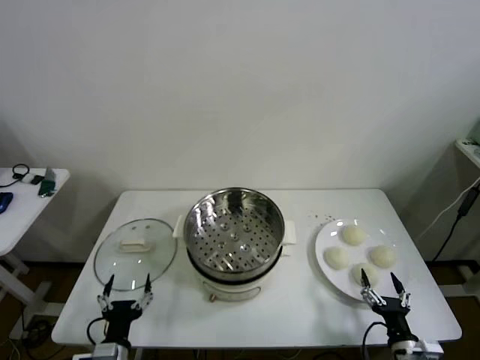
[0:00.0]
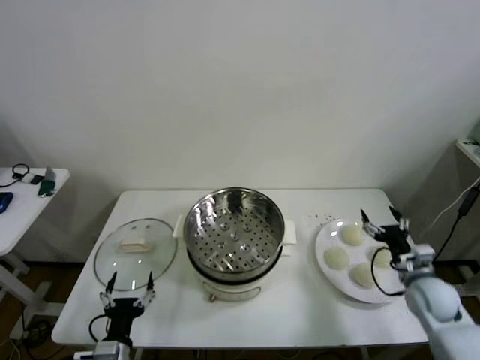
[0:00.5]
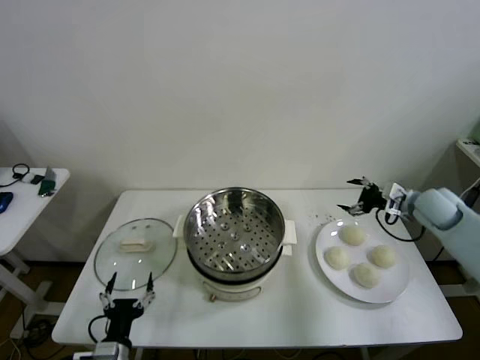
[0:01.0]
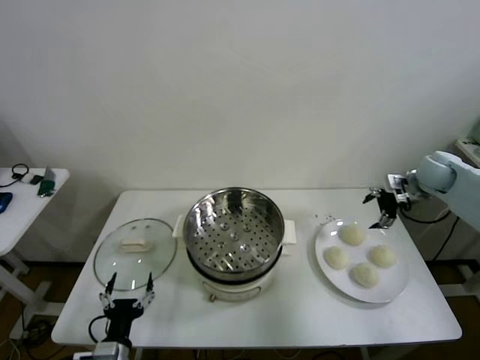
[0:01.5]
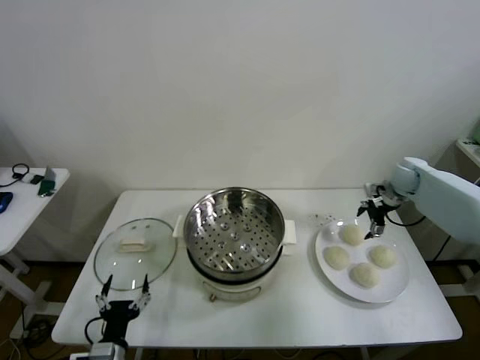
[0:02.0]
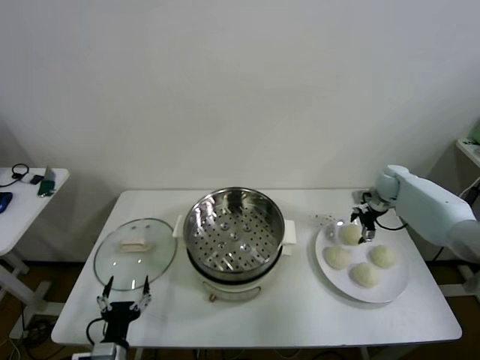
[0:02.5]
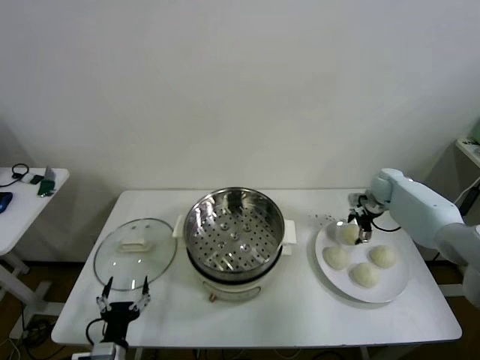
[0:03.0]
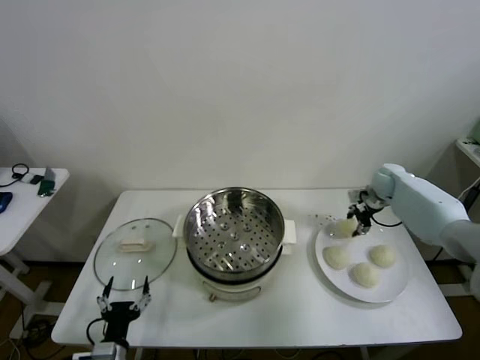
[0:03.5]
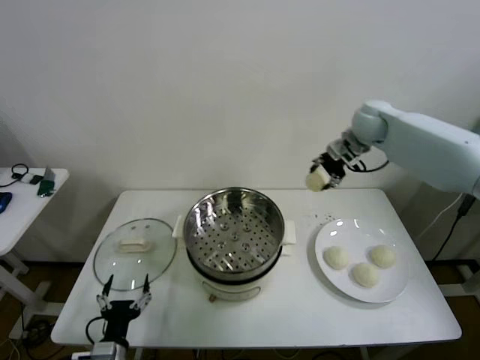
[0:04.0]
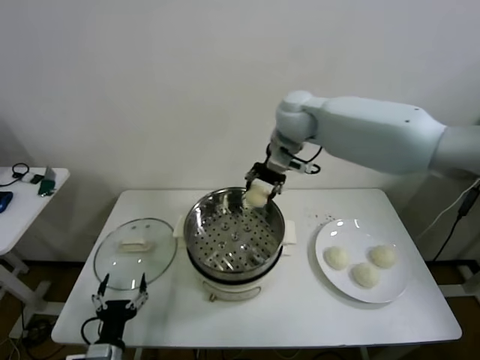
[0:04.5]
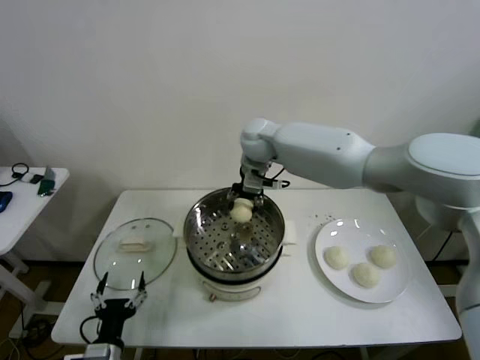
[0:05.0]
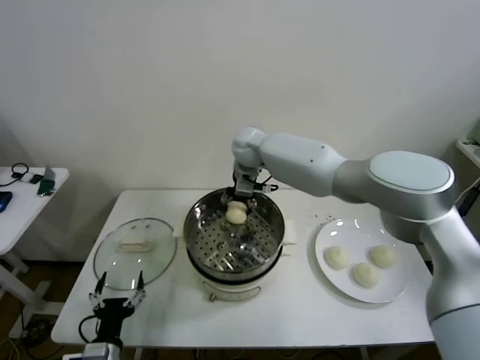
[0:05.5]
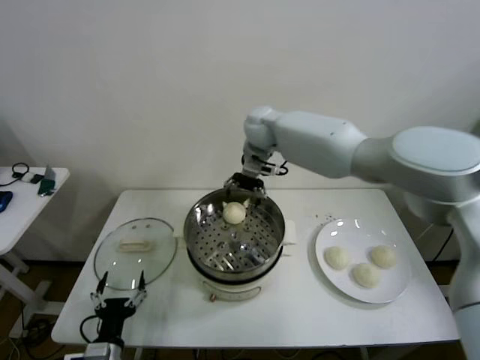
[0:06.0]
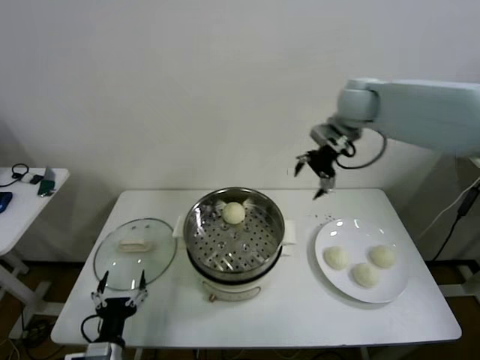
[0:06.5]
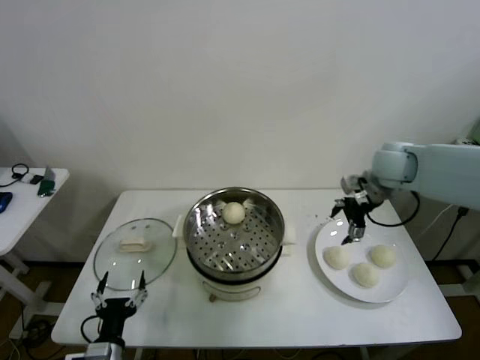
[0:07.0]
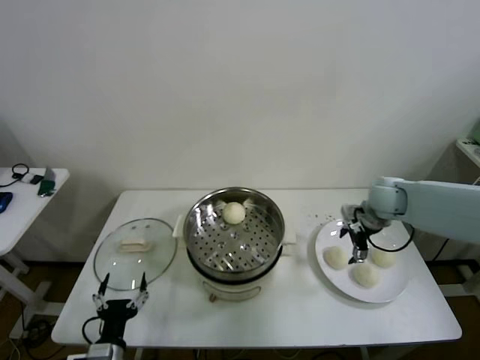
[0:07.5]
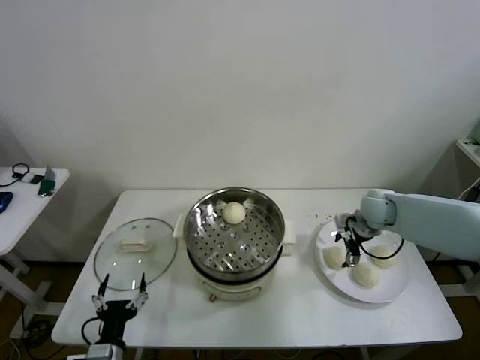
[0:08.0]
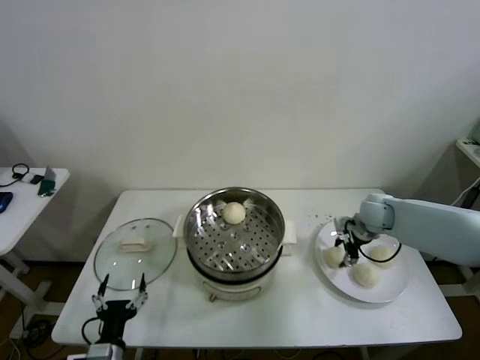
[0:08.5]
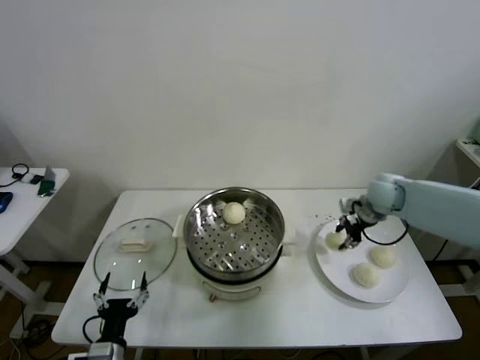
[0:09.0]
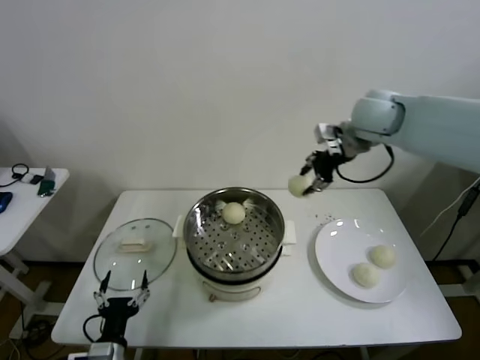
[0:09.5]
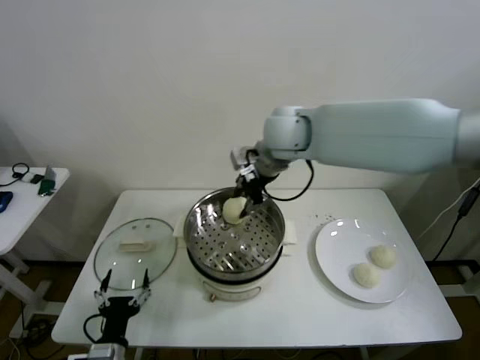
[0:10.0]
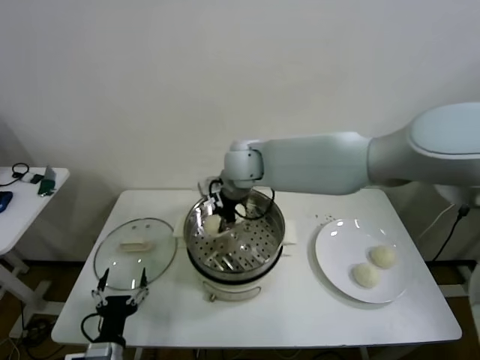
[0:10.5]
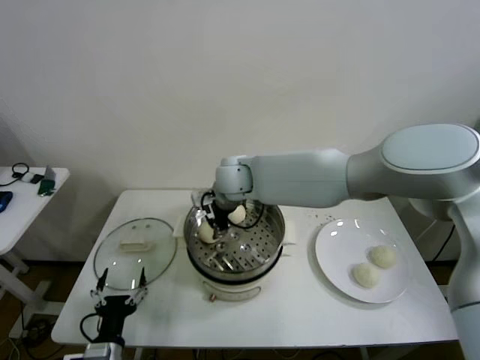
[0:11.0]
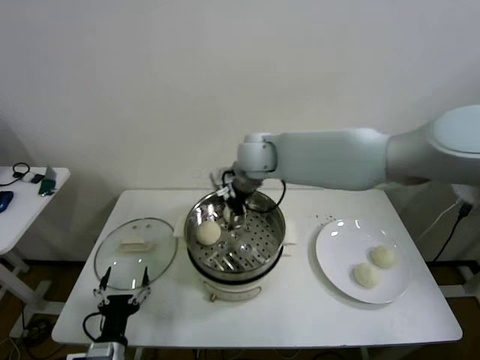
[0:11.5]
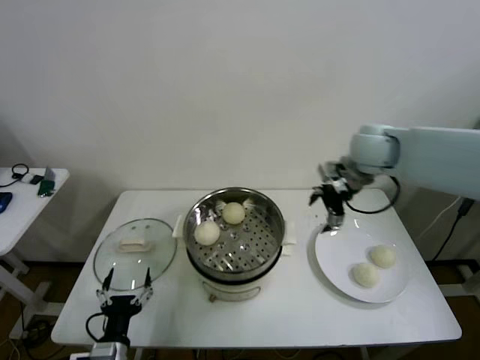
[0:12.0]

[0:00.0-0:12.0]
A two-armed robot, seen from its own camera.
Step, 0:00.0 to 0:03.0: Grasp the baozi in the plate with right gripper.
Step, 0:03.5 to 0:05.5: Place the baozi on the steamer with right gripper.
Step, 0:06.0 to 0:08.5: Grasp the baozi in the plate with right gripper.
Step, 0:09.0 to 0:11.0: Place the baozi on the steamer with right gripper.
0:02.0 to 0:04.0: The right gripper travels upward and to the left by roughly 25 cm, and closes its fingers.
0:04.0 to 0:06.0: The right gripper is displaced to the left by about 20 cm, and opens its fingers.
0:06.0 to 0:08.0: The right gripper shifts some 35 cm to the right, downward and backward.
0:08.0 to 0:10.0: The right gripper moves to the left and upward, roughly 35 cm, and closes its fingers.
0:10.0 to 0:12.0: The right gripper goes some 25 cm to the right, and opens.

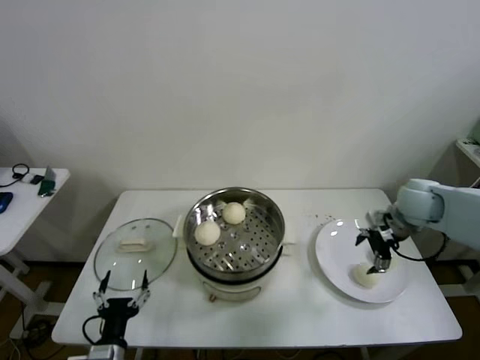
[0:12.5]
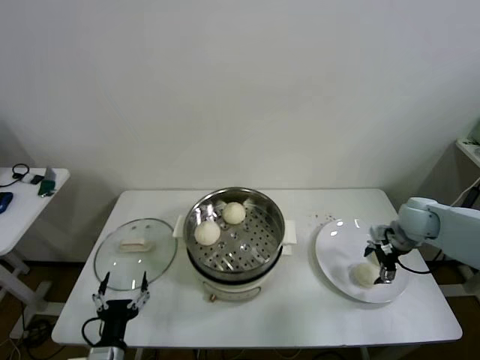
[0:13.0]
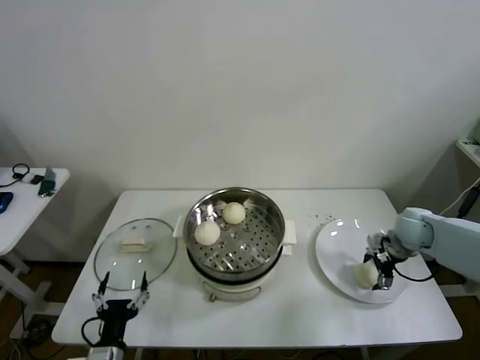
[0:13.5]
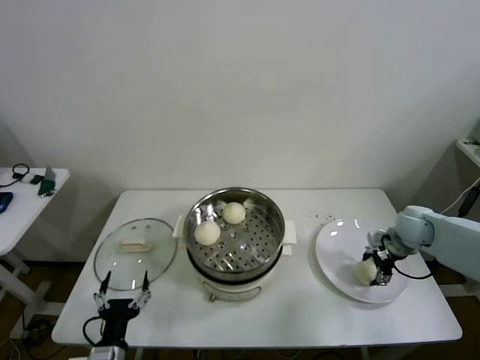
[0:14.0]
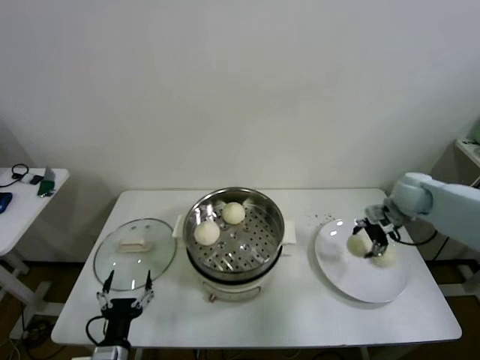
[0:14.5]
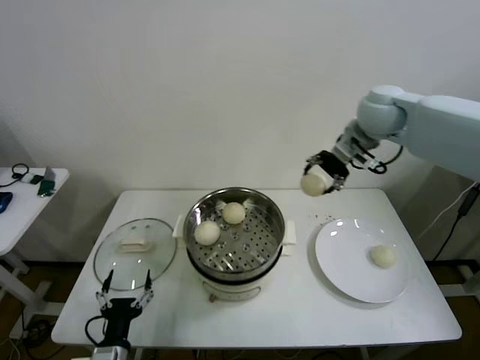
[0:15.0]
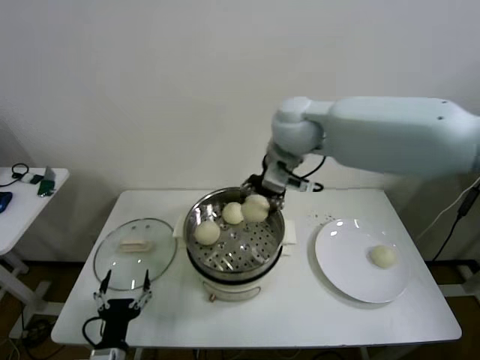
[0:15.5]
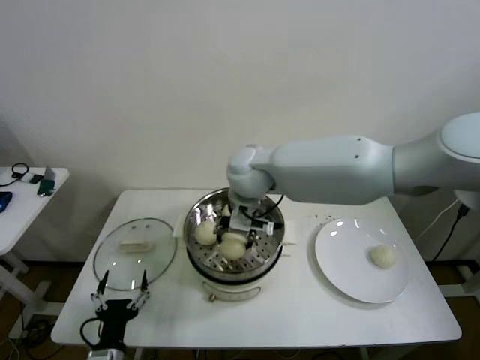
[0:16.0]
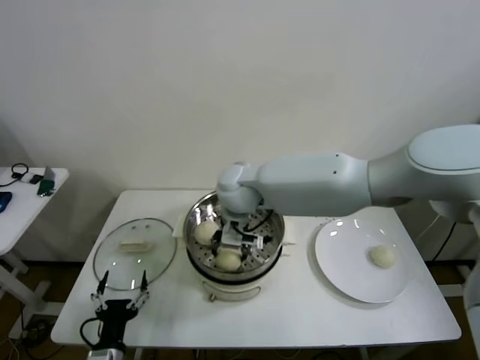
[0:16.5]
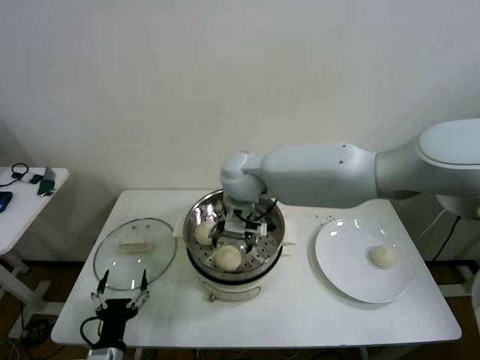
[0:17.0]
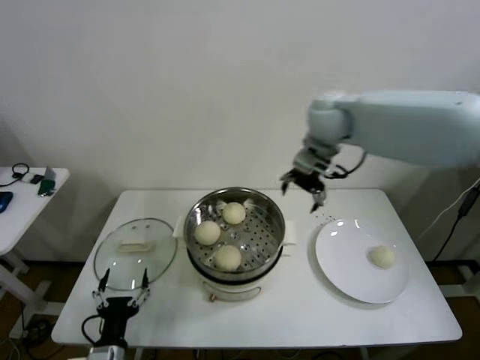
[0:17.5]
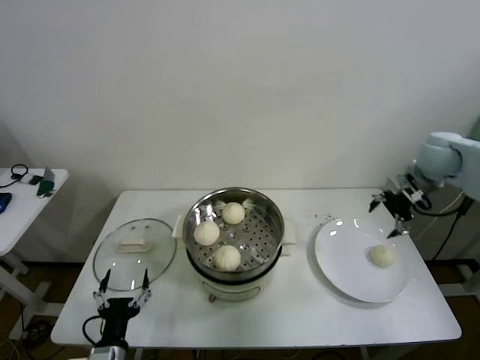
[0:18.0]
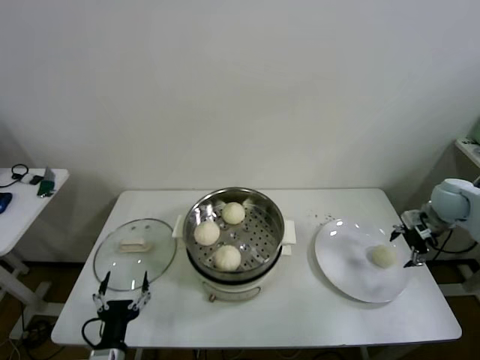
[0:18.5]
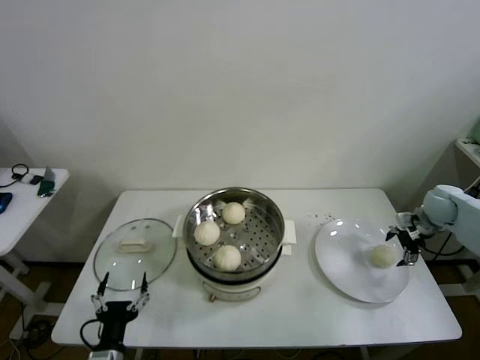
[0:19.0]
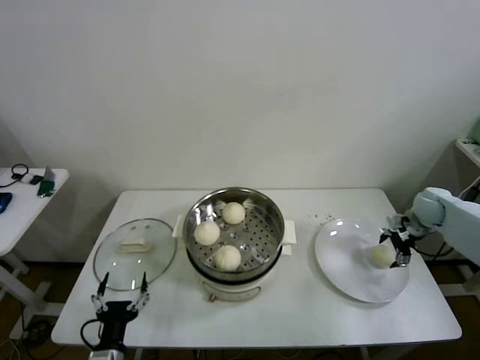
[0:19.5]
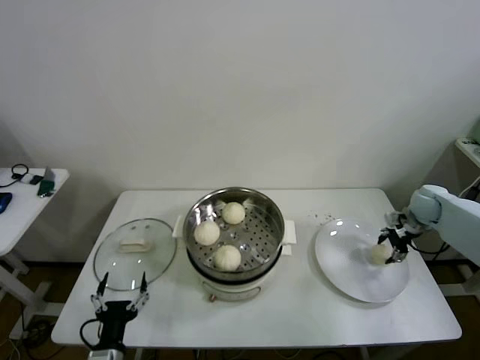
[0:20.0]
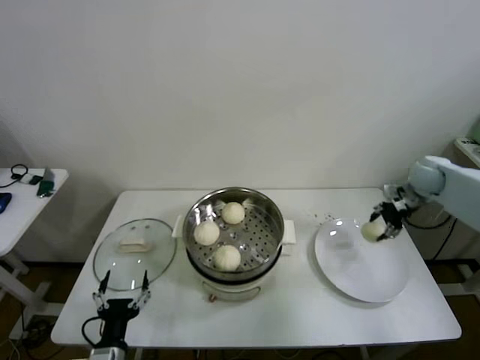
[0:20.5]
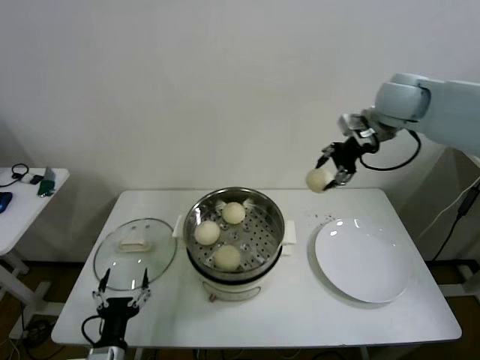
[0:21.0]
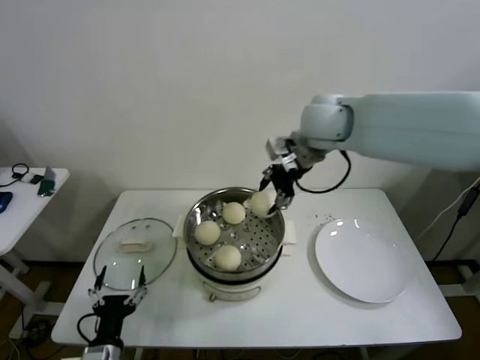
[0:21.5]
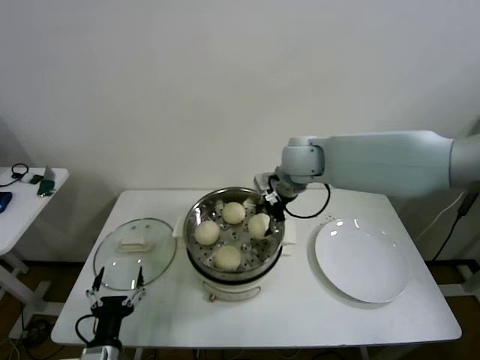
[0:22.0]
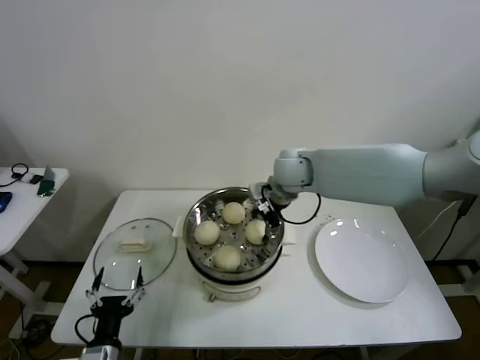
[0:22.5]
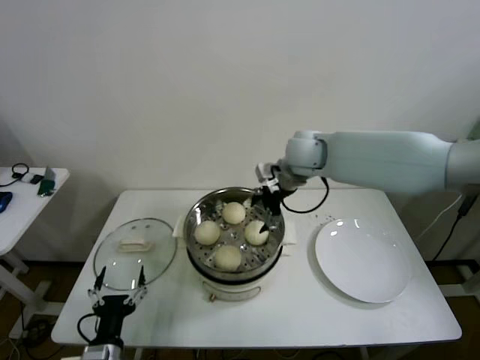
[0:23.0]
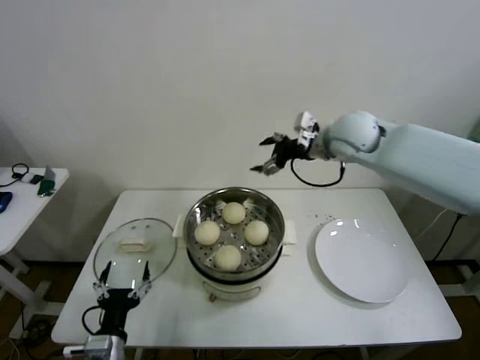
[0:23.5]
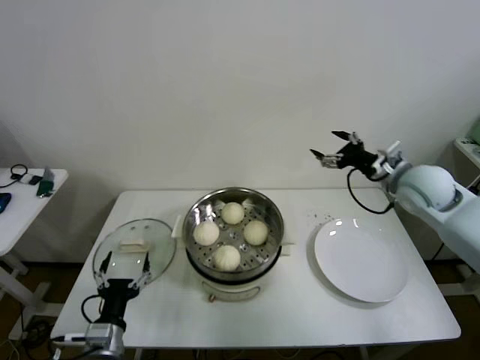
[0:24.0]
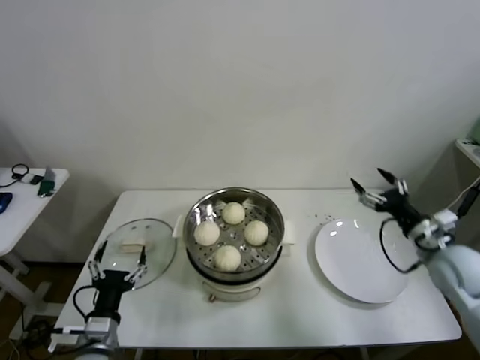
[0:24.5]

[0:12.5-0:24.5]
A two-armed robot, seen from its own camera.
Step, 0:14.0 to 0:16.5: Place the baozi on the steamer with right gripper.
Step, 0:17.0 to 0:20.0: Grasp the baozi in the plate with right gripper.
Step, 0:20.5 to 0:22.5: Place the baozi on the steamer with right gripper.
0:12.5 to 0:14.5: The right gripper travels downward and back again, roughly 10 cm each way, and closes its fingers.
0:14.5 to 0:16.5: The right gripper is displaced to the left by some 40 cm.
0:16.5 to 0:18.5: The right gripper is displaced to the right by some 50 cm, and opens its fingers.
0:18.5 to 0:20.5: The right gripper moves forward, some 5 cm, and closes up.
0:20.5 to 0:22.5: The right gripper travels to the left by some 35 cm, and opens its fingers.
0:22.5 to 0:24.5: The right gripper shifts approximately 35 cm to the right and backward; the left gripper changes place by about 5 cm.

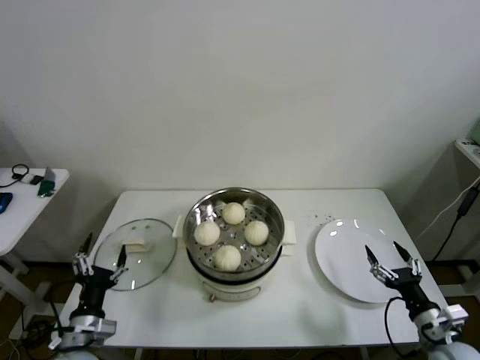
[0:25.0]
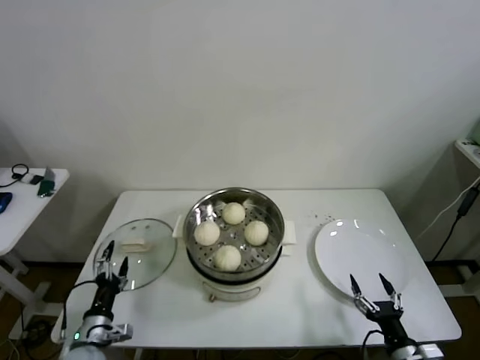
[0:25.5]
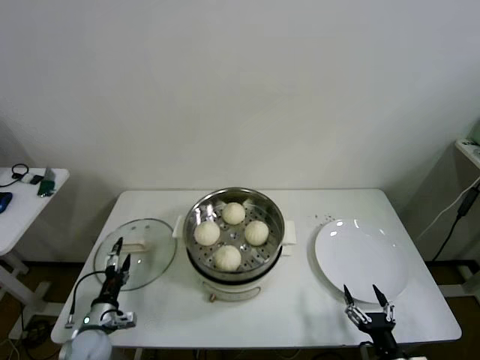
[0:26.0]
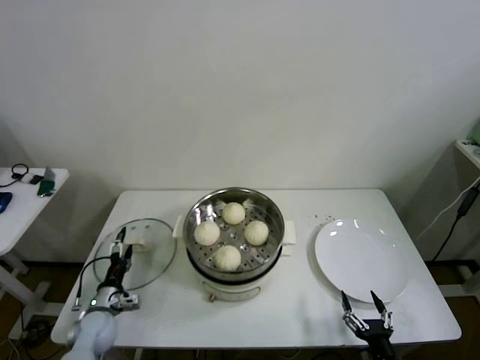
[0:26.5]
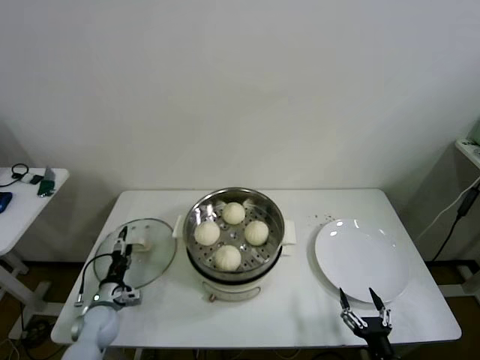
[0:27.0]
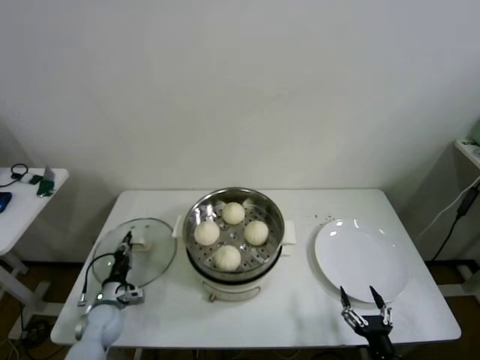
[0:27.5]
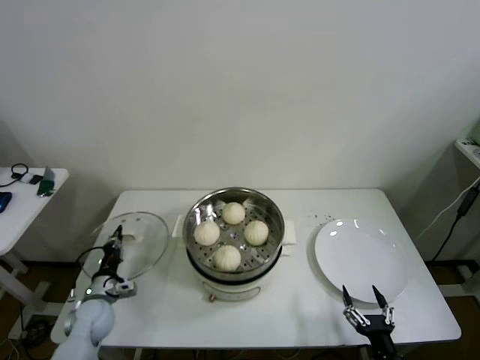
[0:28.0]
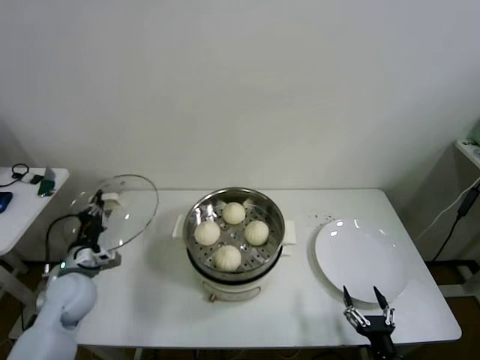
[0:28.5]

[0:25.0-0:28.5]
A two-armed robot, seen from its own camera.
Step, 0:25.0 to 0:27.5: Grasp the pot lid with left gripper.
0:25.0 to 0:27.0: The right gripper shifts about 15 cm to the left, backward and downward. The left gripper moves downward, forward and to the left, roughly 20 cm.
0:27.0 to 0:28.5: The left gripper is displaced upward by roughly 15 cm, and closes up.
